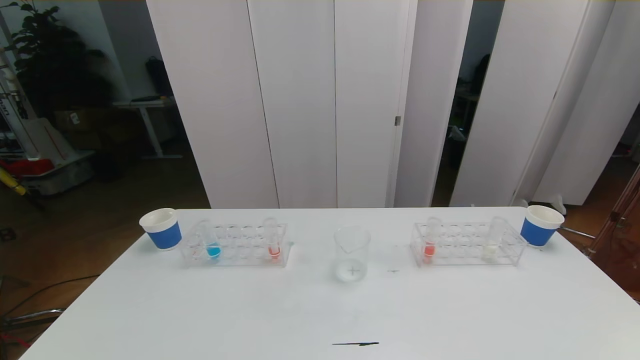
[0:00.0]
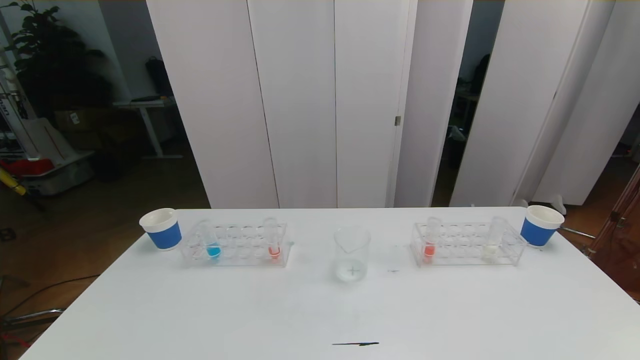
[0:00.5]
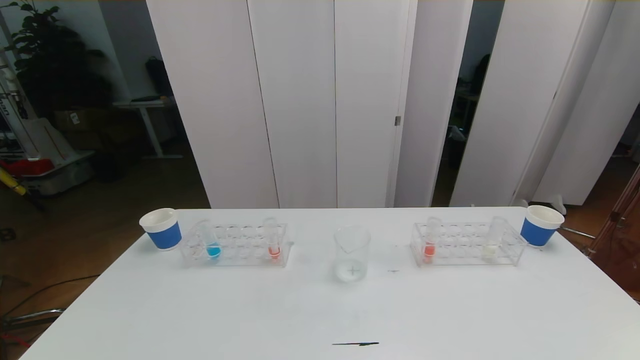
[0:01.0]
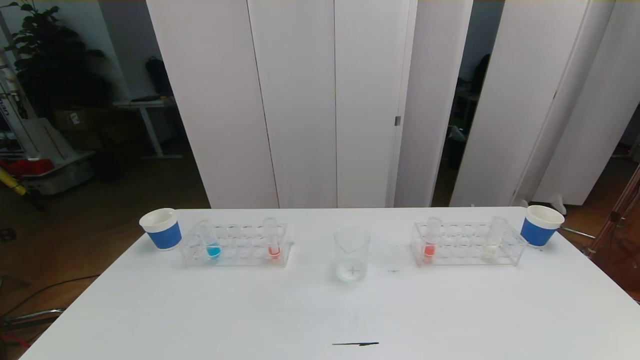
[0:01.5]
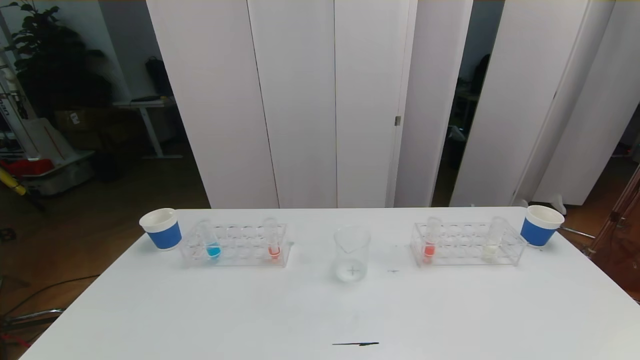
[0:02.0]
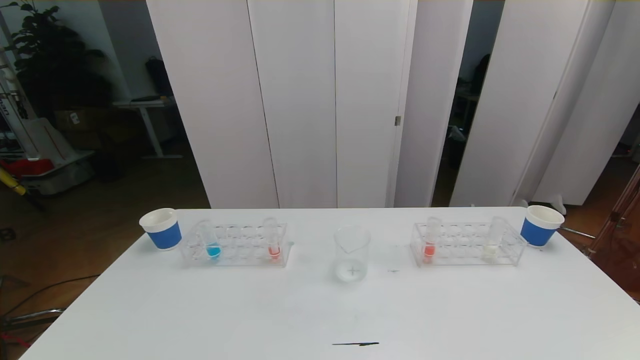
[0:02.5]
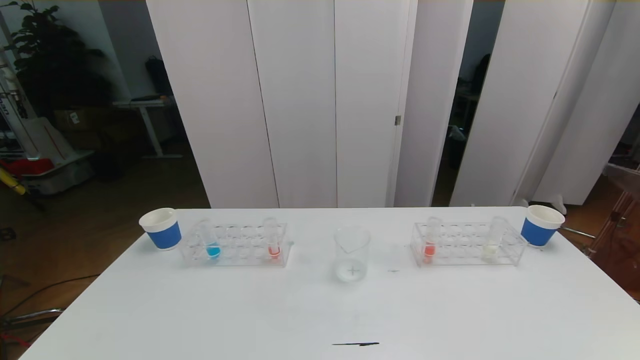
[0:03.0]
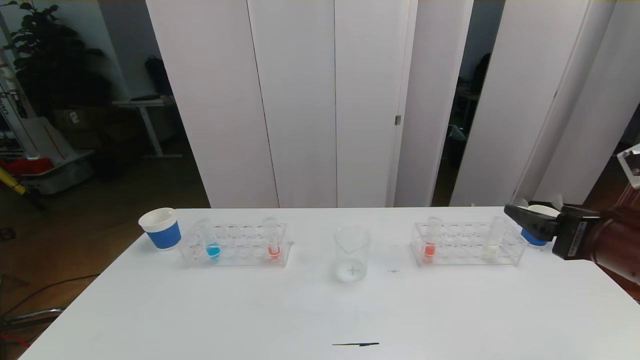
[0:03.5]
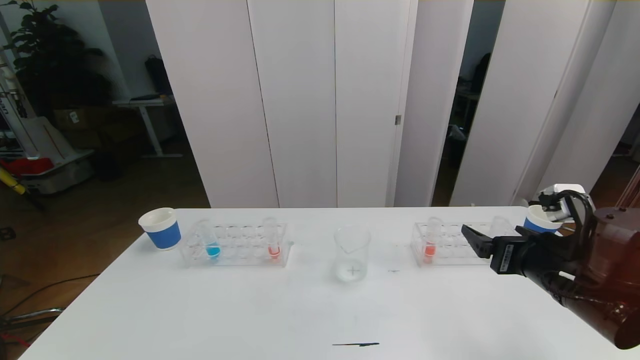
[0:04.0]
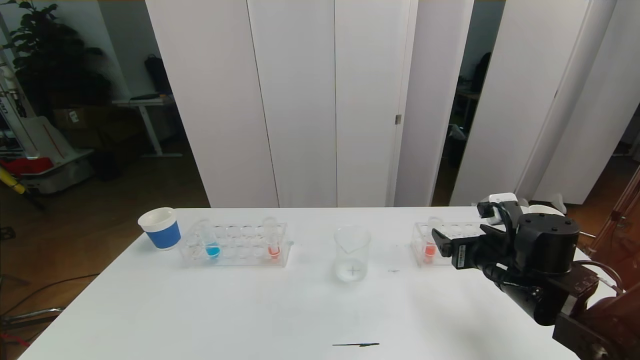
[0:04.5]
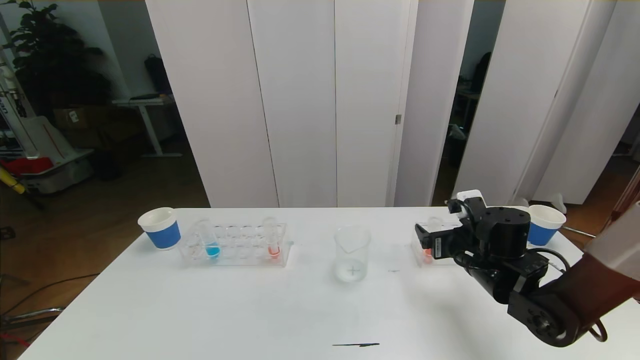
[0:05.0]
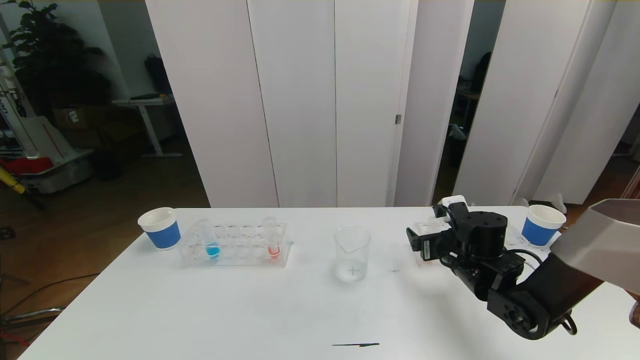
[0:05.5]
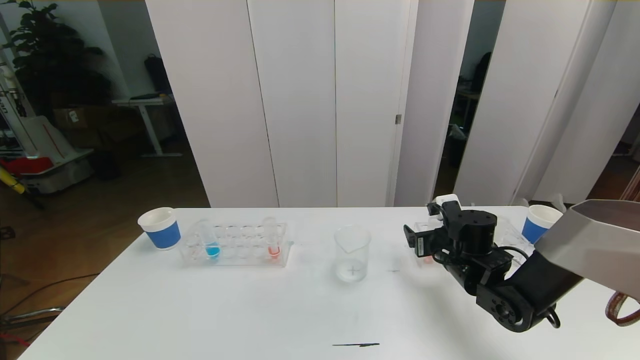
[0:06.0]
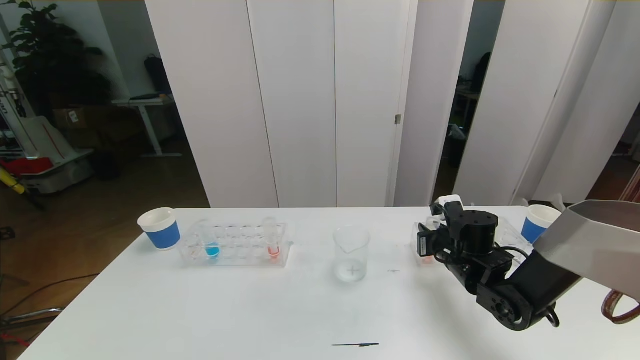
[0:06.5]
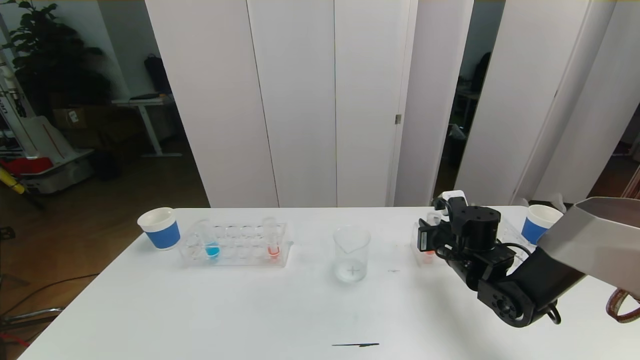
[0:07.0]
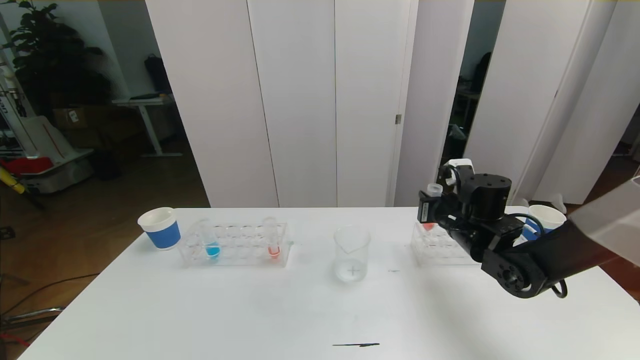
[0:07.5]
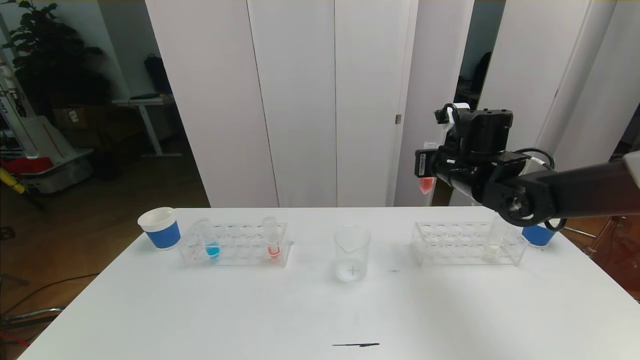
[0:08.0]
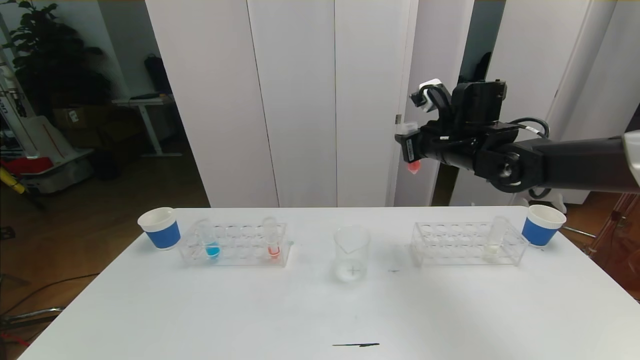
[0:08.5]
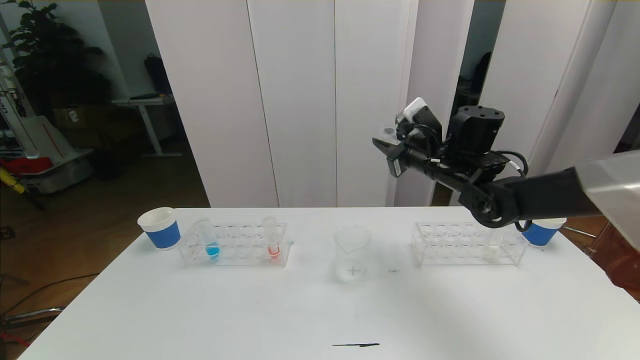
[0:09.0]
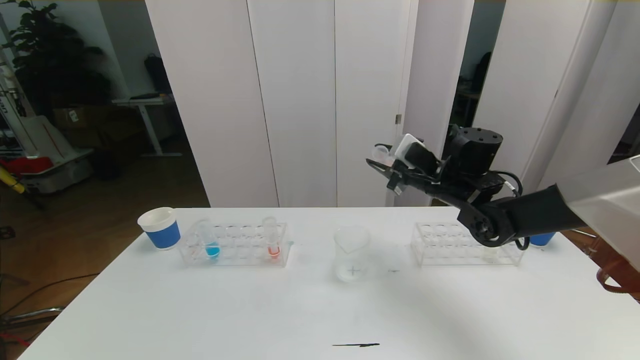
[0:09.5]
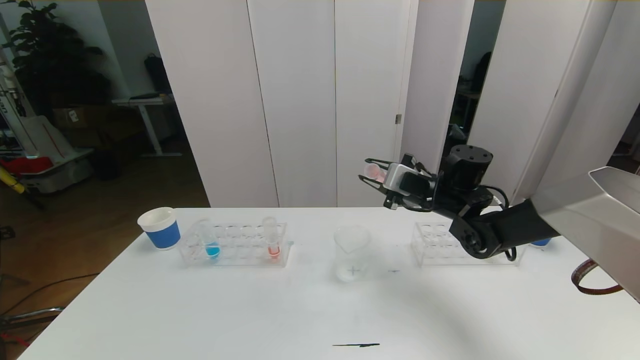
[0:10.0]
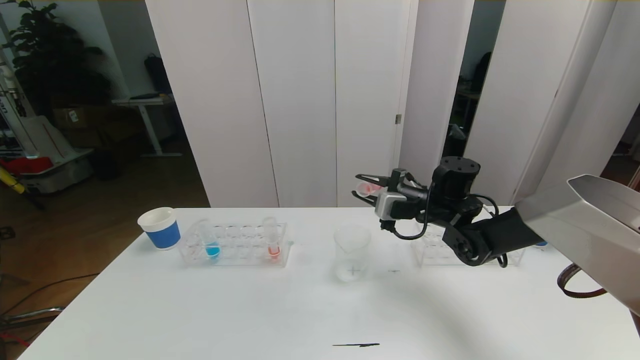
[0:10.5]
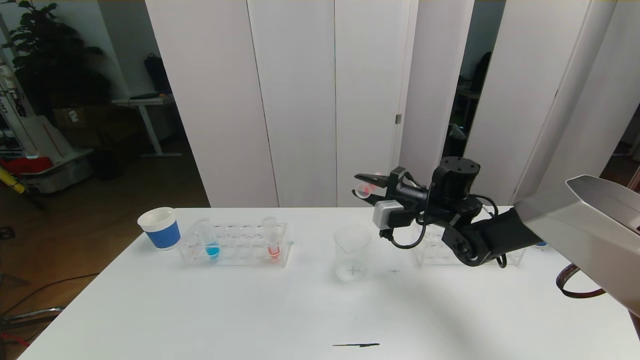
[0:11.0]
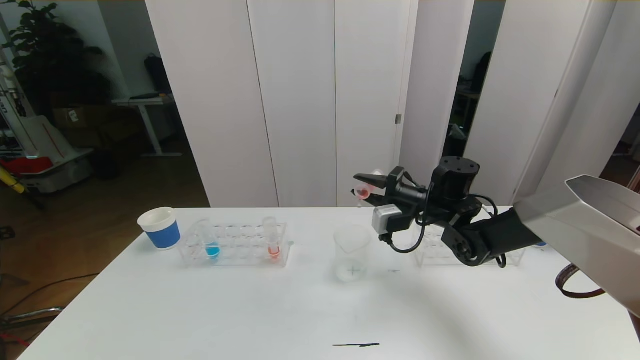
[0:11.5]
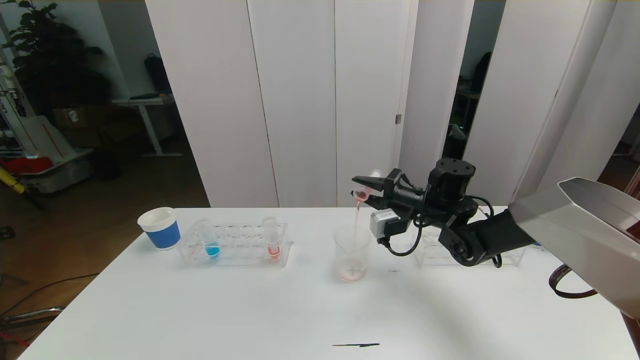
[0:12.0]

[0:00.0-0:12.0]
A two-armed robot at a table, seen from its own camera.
Task of the whole recording: pick up the test tube with red pigment the test tube with blue pigment and the test tube with white pigment by grippers and pour them into the beaker.
0:02.0 to 0:04.0: The right gripper shifts some 25 cm forward.
0:04.0 to 0:06.0: The right gripper moves forward, downward and to the left, roughly 15 cm.
0:06.0 to 0:08.0: The right gripper shifts about 15 cm upward, and closes up.
0:08.0 to 0:10.0: The right gripper travels downward by roughly 5 cm.

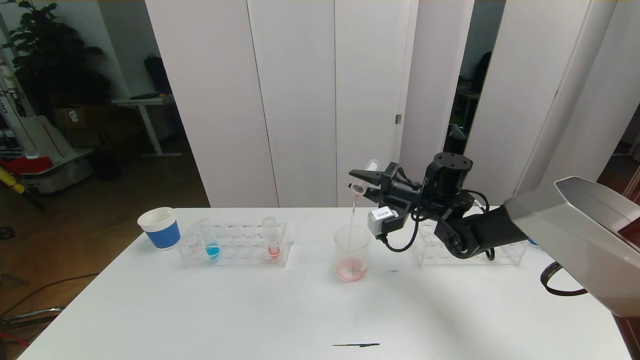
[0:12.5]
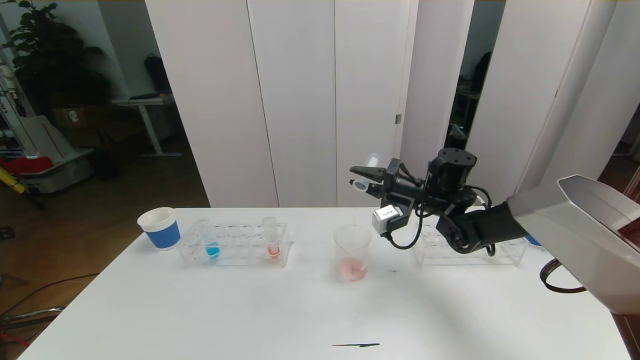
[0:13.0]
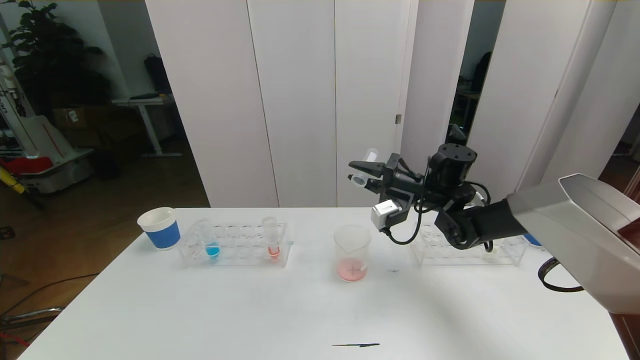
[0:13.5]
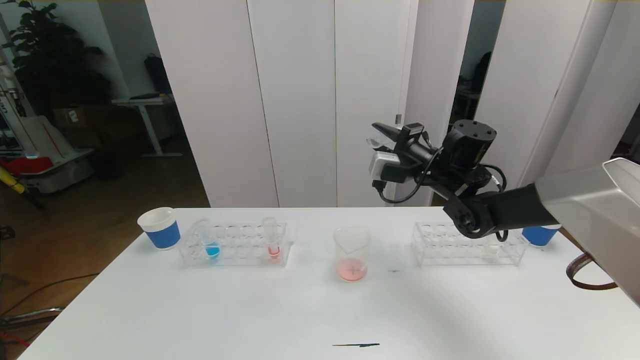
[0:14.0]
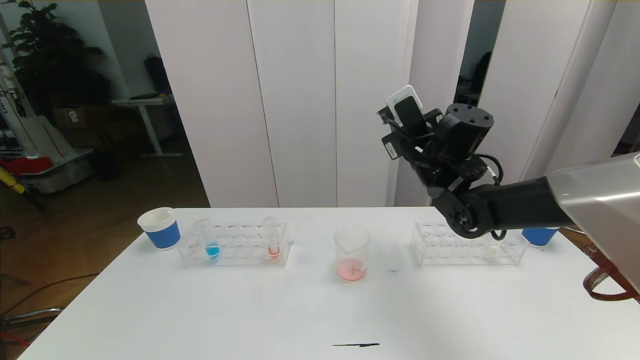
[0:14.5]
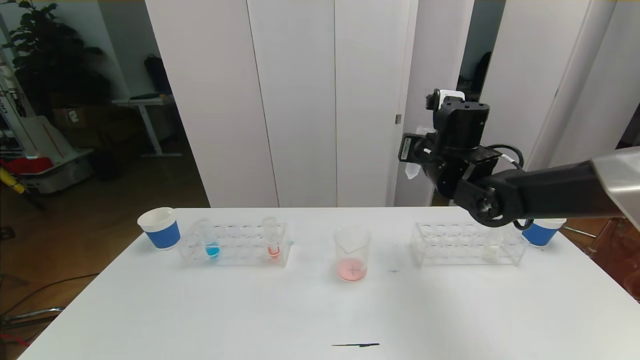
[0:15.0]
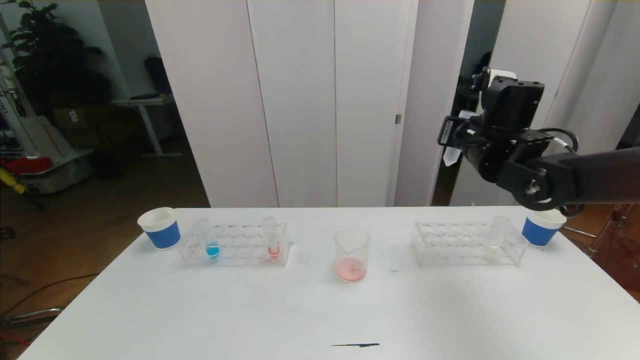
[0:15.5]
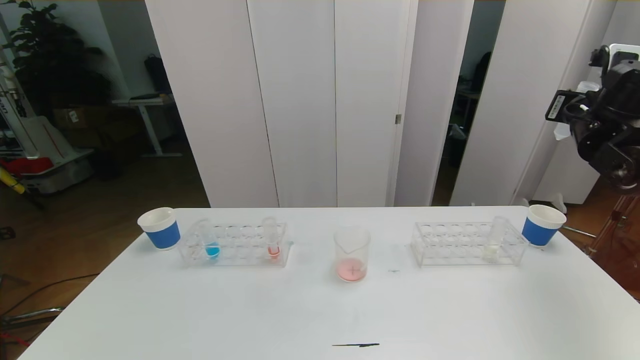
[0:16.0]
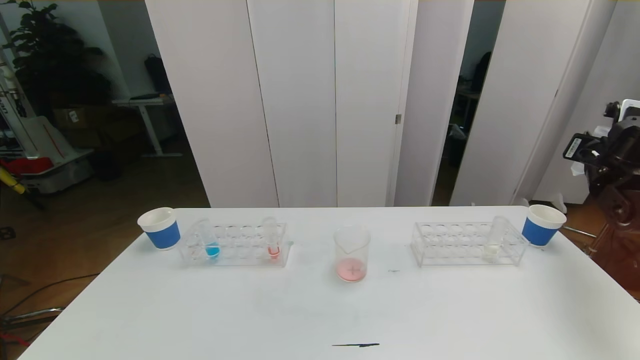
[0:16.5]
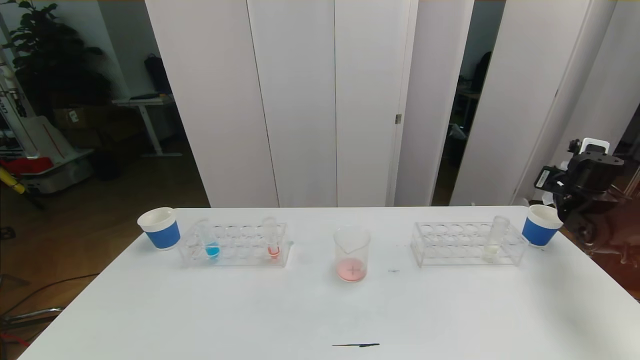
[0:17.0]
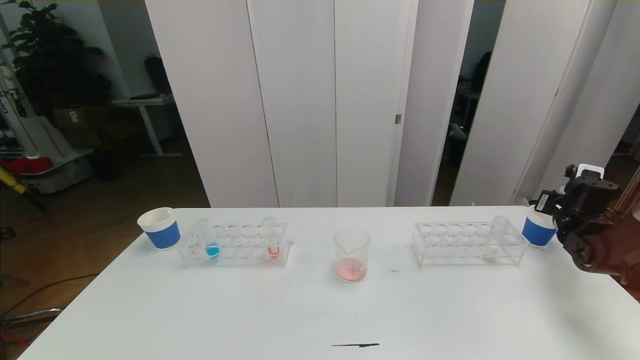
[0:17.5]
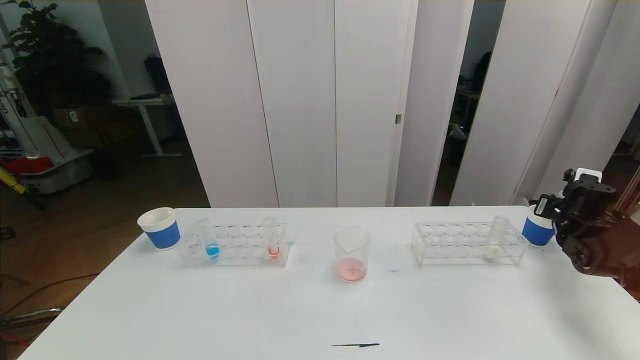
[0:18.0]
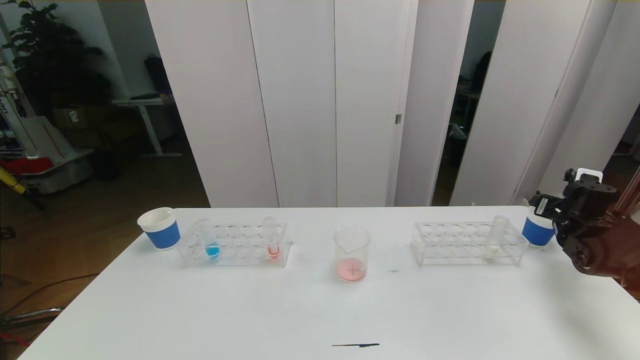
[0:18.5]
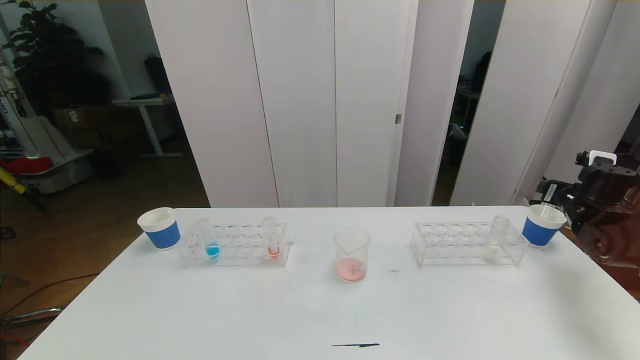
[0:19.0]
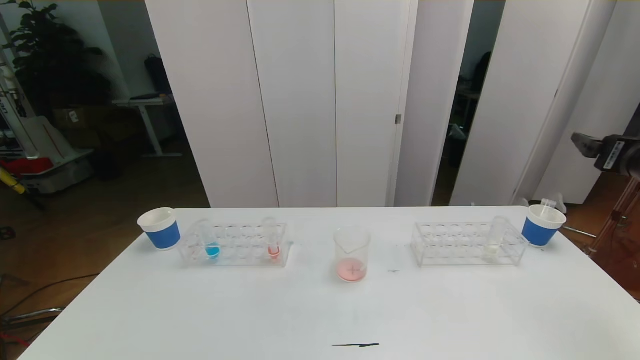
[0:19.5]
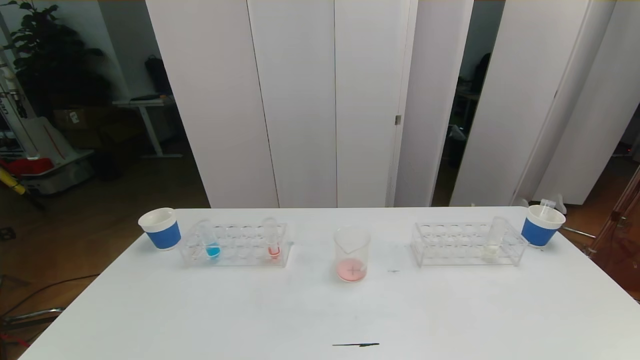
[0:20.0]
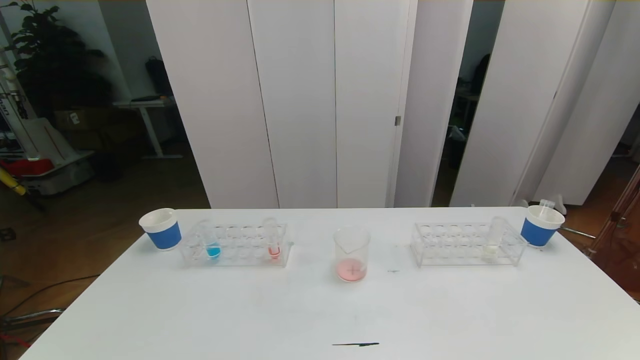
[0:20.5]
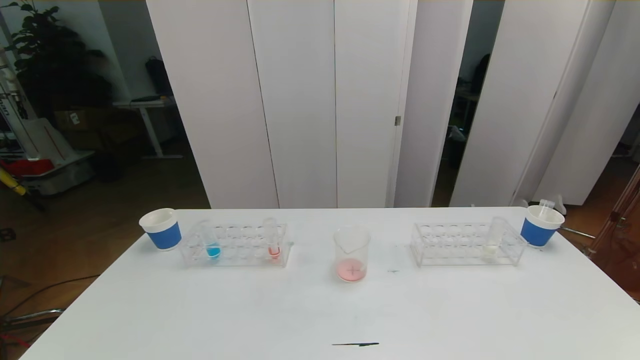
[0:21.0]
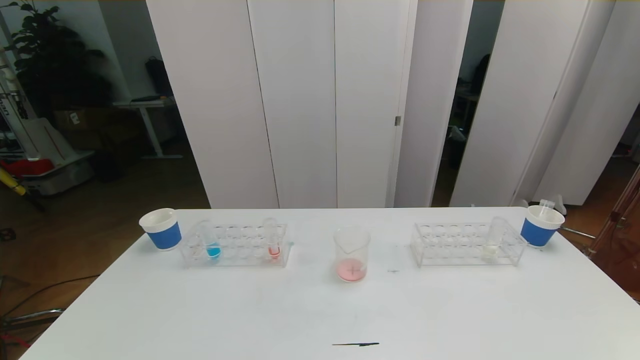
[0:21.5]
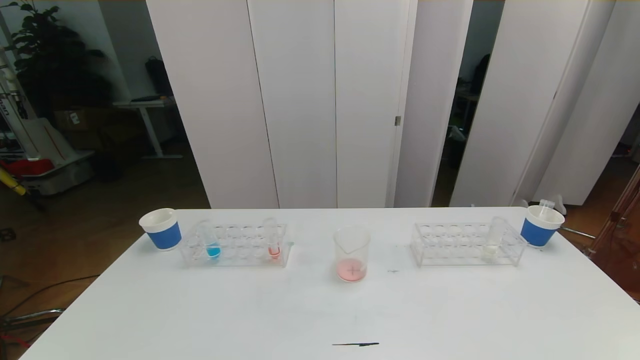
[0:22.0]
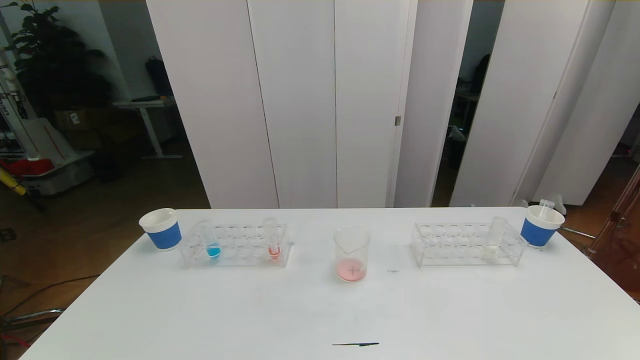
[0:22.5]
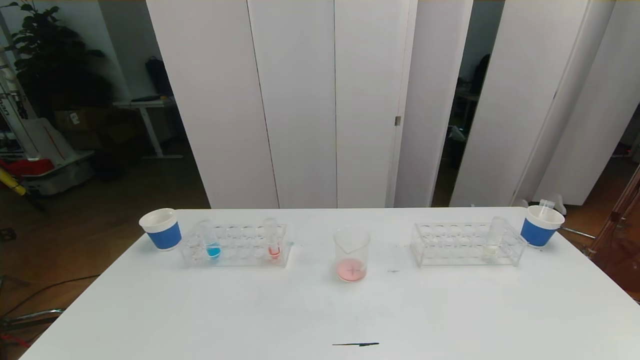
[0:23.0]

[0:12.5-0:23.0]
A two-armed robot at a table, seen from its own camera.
Task of the whole recording: pick up the test tube with red pigment the test tube with blue pigment and the test tube with white pigment by grippers and pour them into the beaker.
Step, 0:12.5 to 0:22.0: Pour the red reagent into the graduated cylinder and place the test tube into the paper cup.
0:12.5 to 0:14.5: The right gripper moves upward, about 10 cm.
0:14.5 to 0:16.5: The right gripper is displaced to the right by some 30 cm.
0:16.5 to 0:19.0: The right gripper heads downward, covering some 10 cm, and opens up.
0:19.0 to 0:21.0: The right gripper travels backward by approximately 40 cm.
